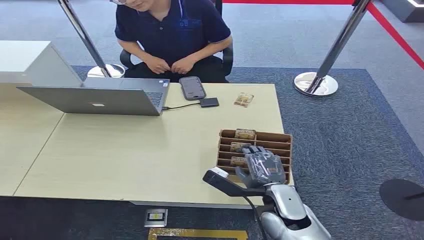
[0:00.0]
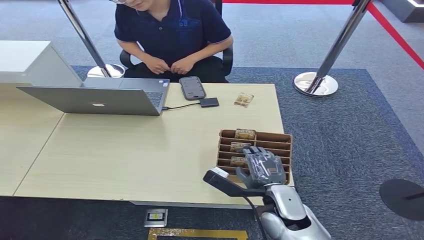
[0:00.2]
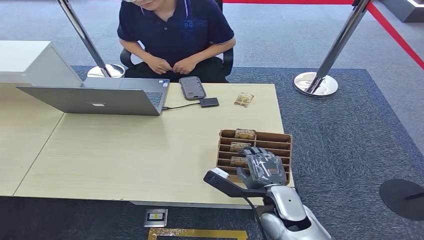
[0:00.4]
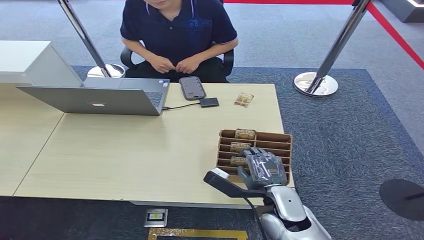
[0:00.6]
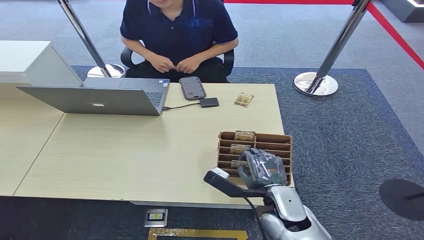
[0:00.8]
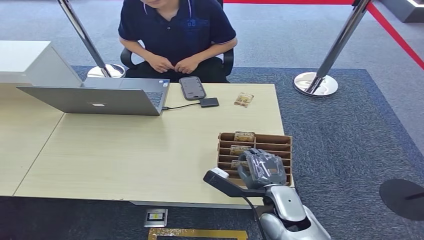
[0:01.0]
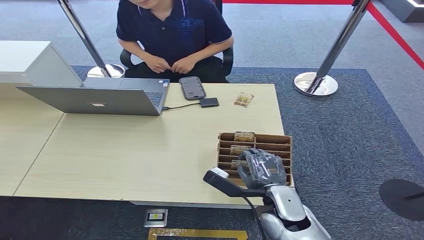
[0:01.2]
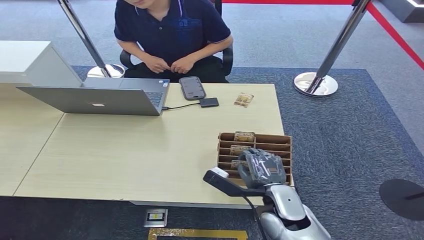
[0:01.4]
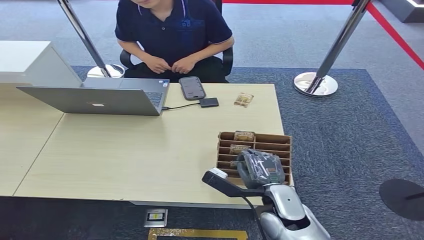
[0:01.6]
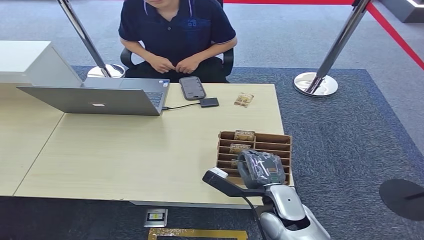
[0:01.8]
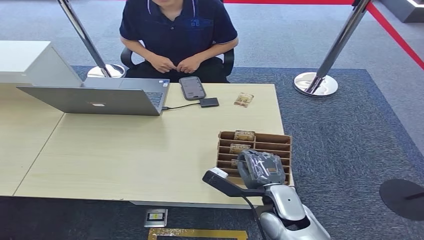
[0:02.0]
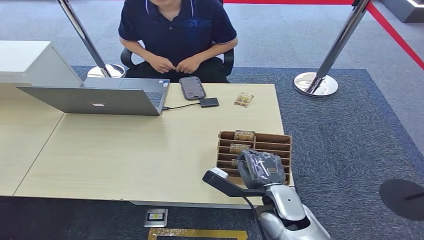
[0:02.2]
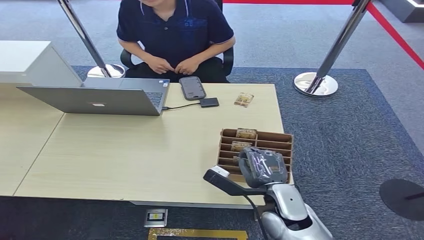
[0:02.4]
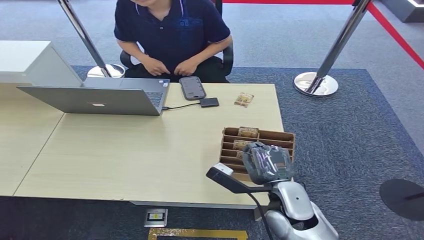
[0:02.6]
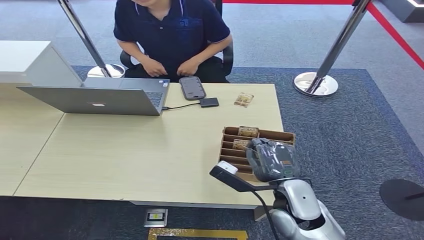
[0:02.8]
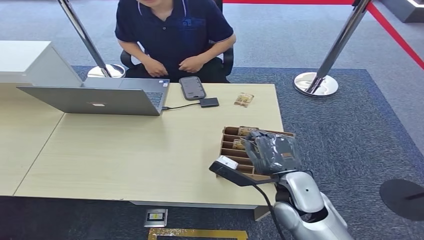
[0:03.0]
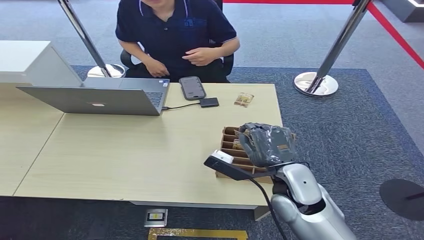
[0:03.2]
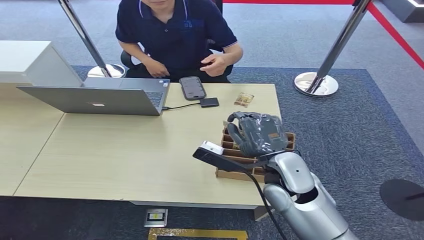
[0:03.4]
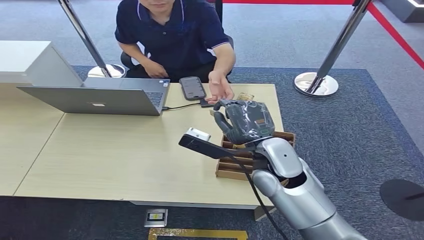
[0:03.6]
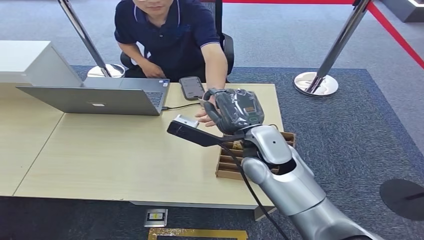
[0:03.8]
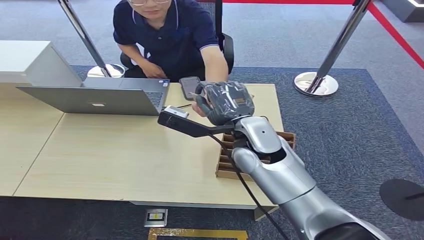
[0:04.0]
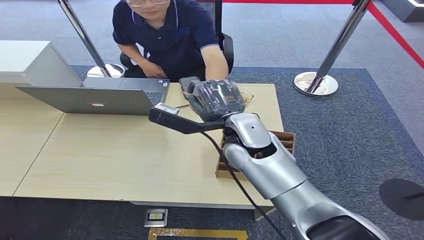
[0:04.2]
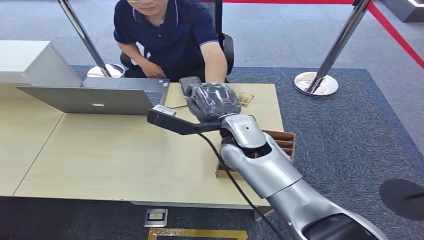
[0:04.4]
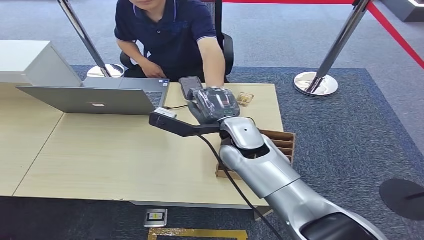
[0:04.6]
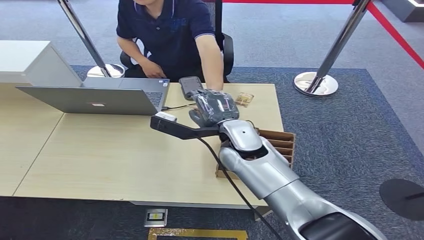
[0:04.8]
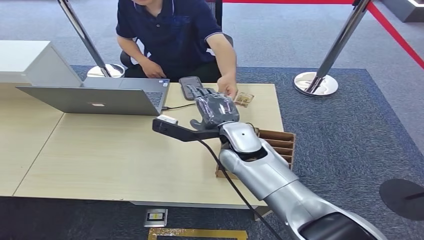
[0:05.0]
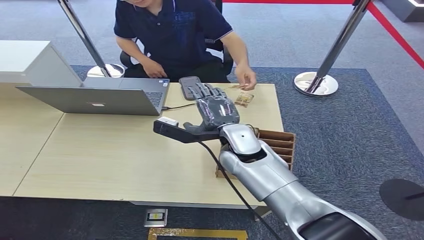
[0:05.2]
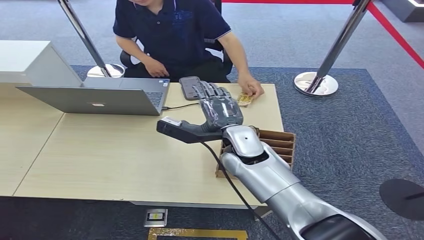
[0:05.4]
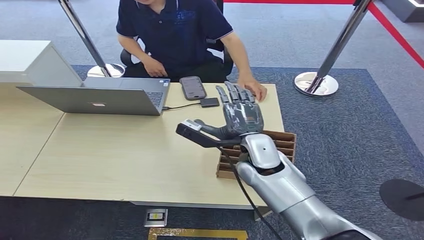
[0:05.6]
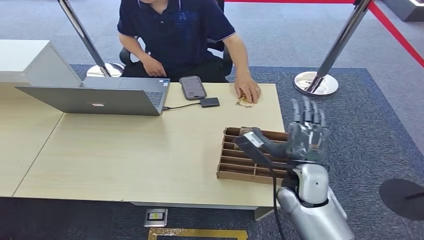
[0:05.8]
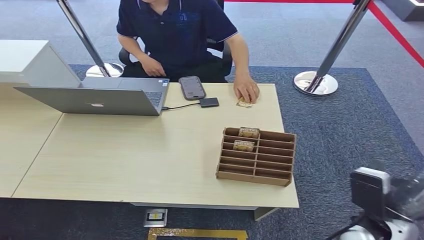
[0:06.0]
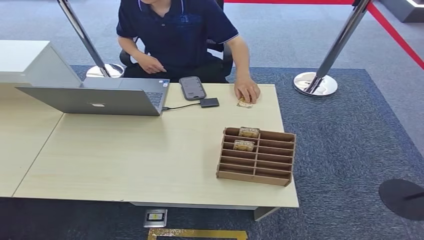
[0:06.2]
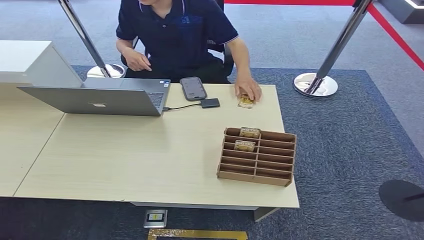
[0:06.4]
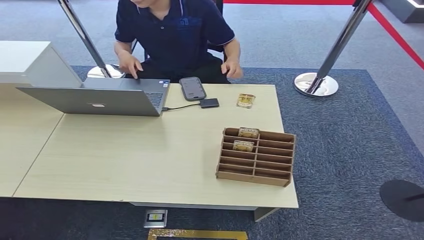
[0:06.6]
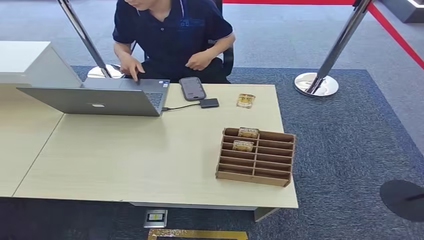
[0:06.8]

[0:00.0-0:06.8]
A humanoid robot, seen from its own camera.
Step, 0:00.0 to 0:03.4: Pick up the key card from the card box.
Step, 0:03.8 to 0:06.6: Hand the key card to the target.
0:01.4 to 0:02.8: The hands make only small movements.
0:02.8 to 0:04.0: The right hand moves upward, forward and to the left, about 20 cm.
0:04.0 to 0:05.4: The right hand travels downward by approximately 5 cm.
0:05.4 to 0:06.8: The right hand moves backward, downward and to the right, roughly 50 cm.
